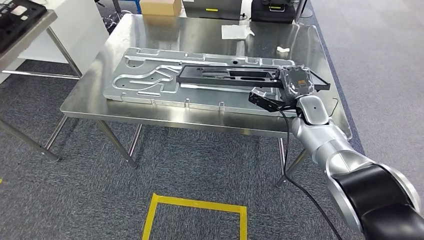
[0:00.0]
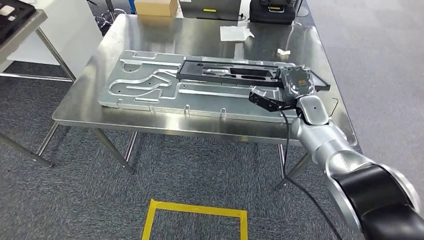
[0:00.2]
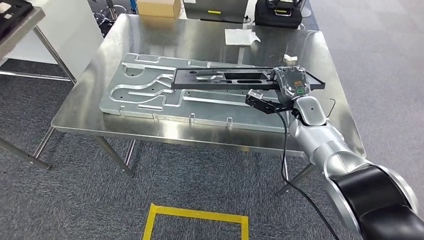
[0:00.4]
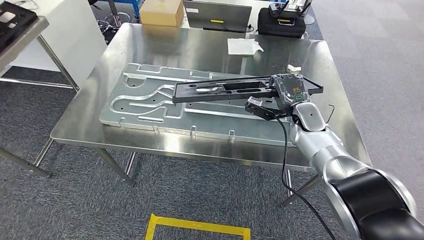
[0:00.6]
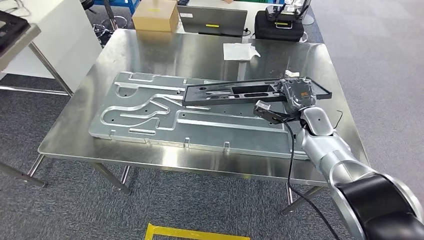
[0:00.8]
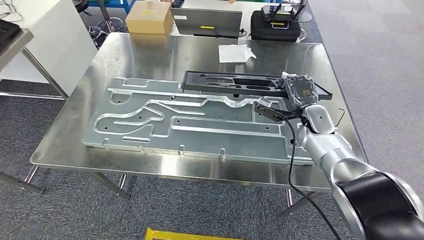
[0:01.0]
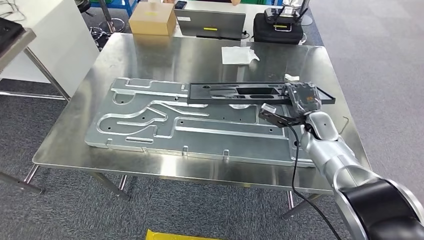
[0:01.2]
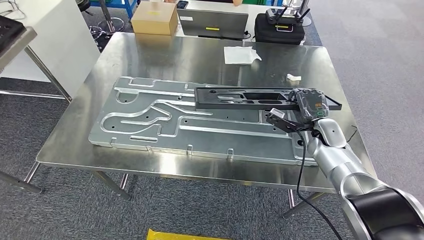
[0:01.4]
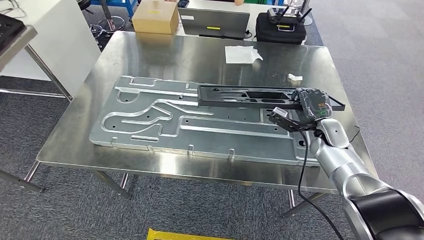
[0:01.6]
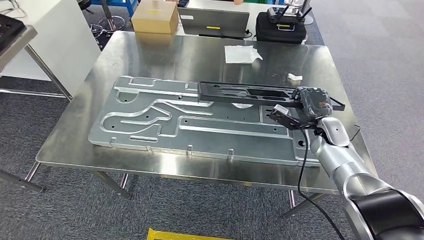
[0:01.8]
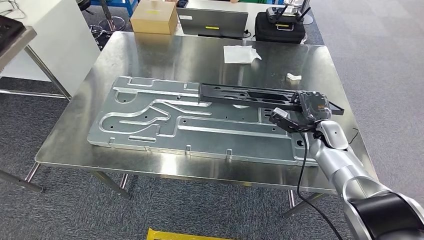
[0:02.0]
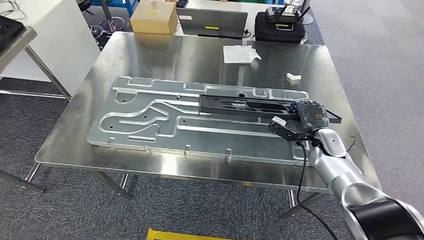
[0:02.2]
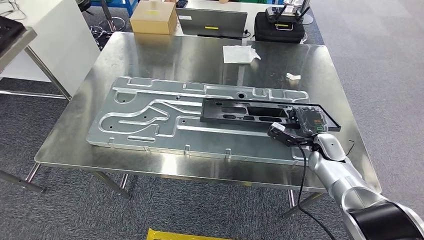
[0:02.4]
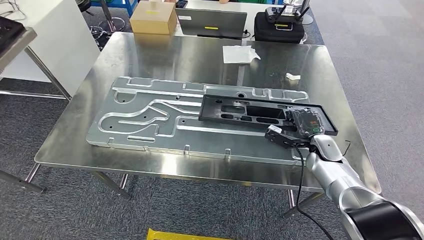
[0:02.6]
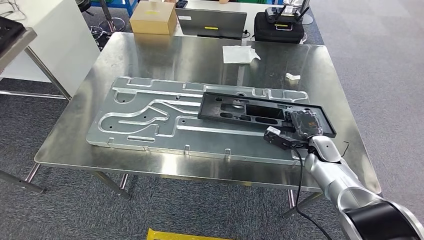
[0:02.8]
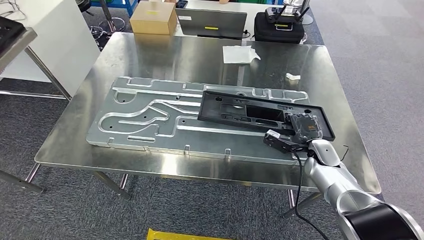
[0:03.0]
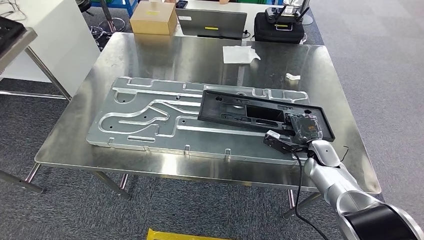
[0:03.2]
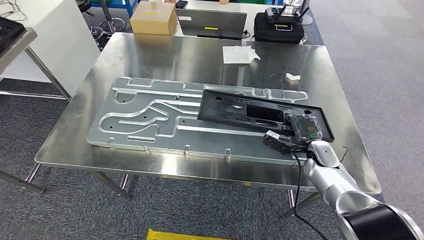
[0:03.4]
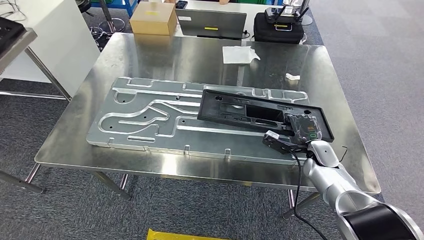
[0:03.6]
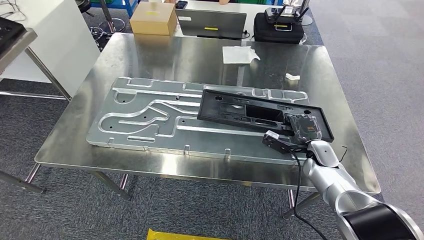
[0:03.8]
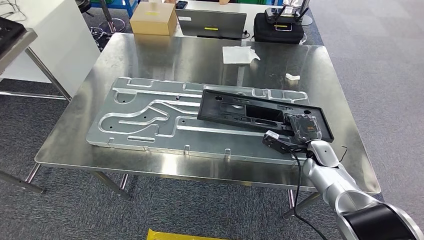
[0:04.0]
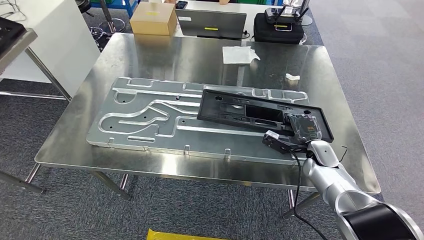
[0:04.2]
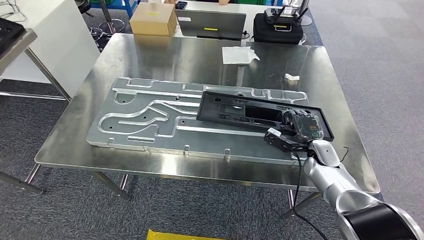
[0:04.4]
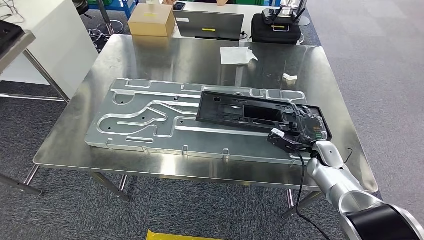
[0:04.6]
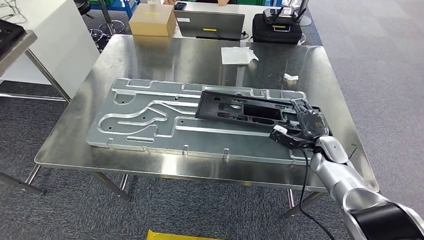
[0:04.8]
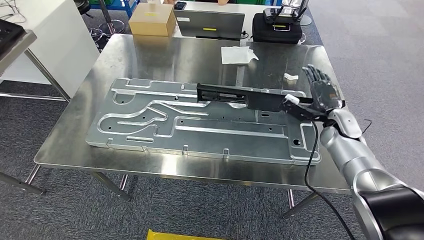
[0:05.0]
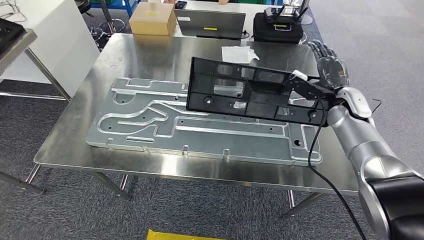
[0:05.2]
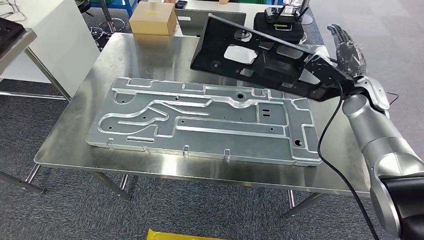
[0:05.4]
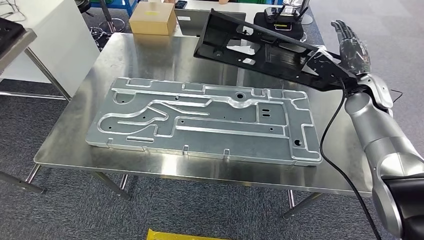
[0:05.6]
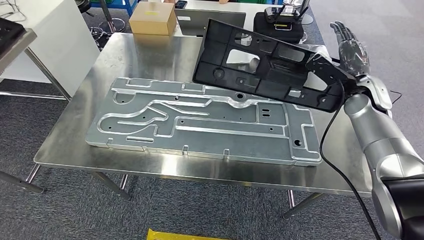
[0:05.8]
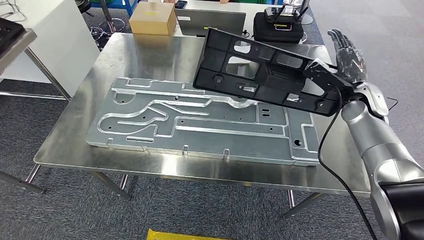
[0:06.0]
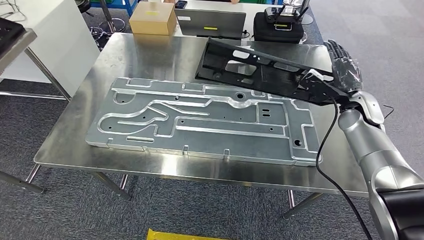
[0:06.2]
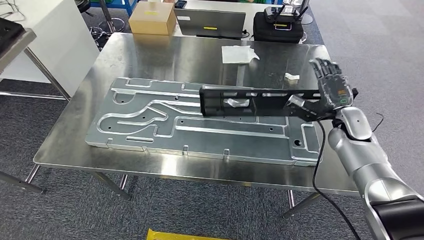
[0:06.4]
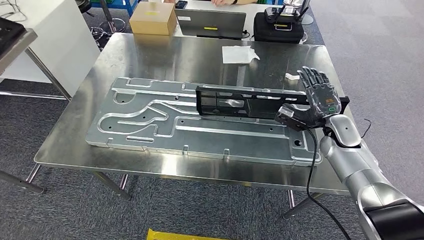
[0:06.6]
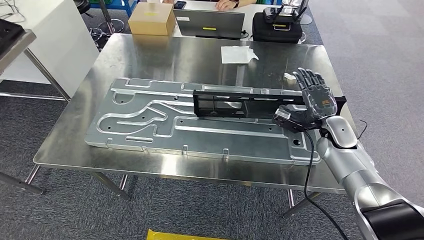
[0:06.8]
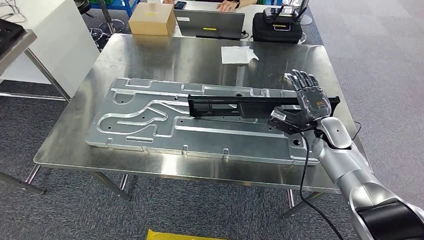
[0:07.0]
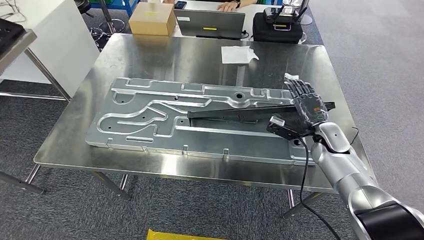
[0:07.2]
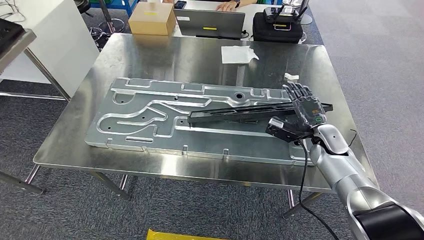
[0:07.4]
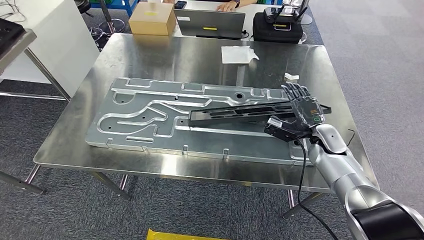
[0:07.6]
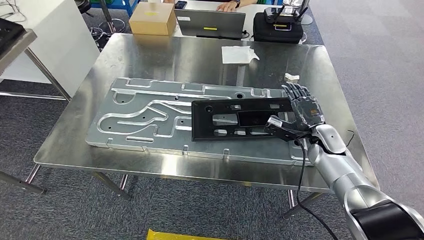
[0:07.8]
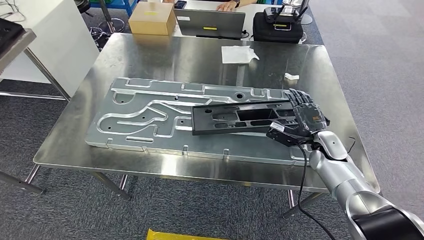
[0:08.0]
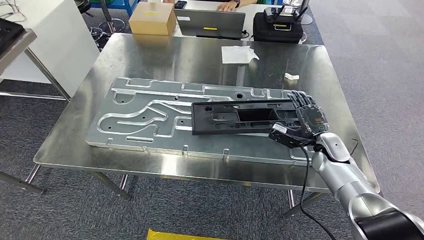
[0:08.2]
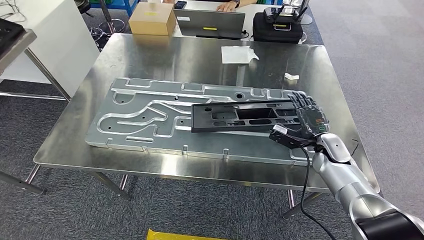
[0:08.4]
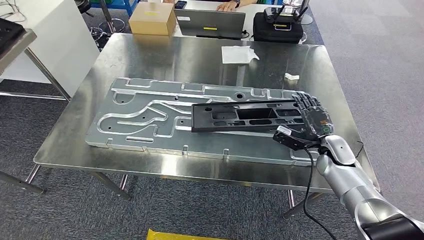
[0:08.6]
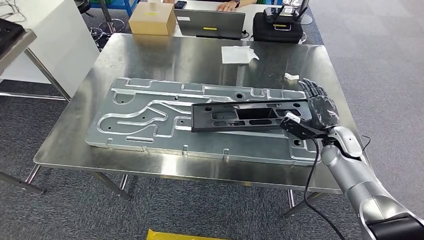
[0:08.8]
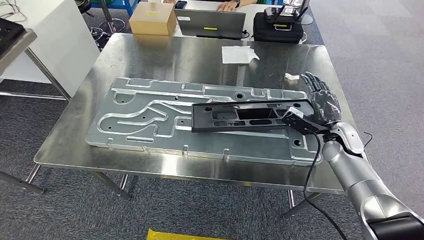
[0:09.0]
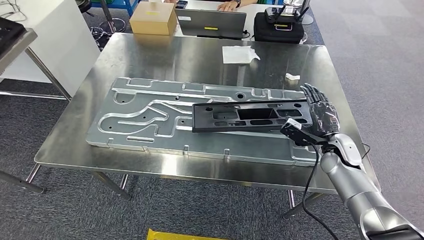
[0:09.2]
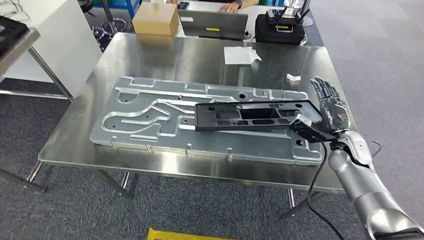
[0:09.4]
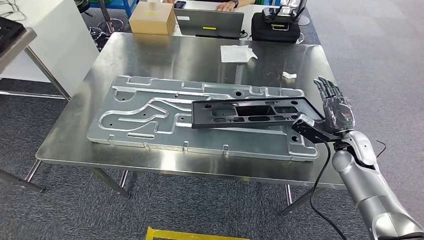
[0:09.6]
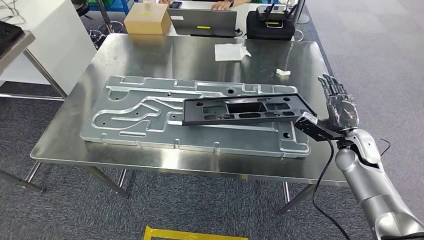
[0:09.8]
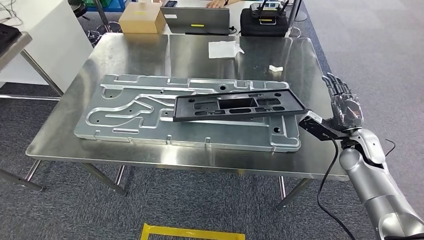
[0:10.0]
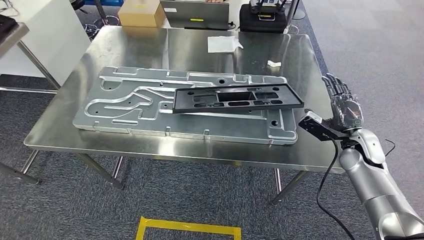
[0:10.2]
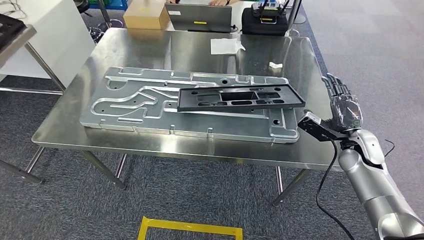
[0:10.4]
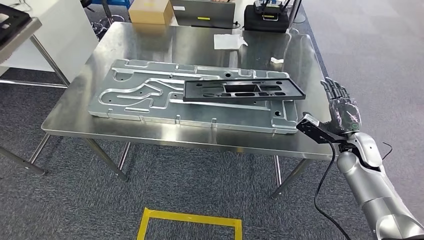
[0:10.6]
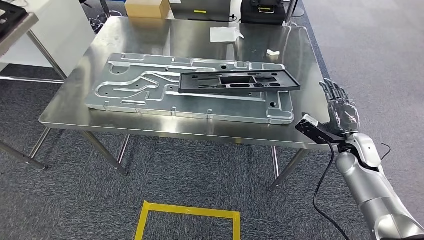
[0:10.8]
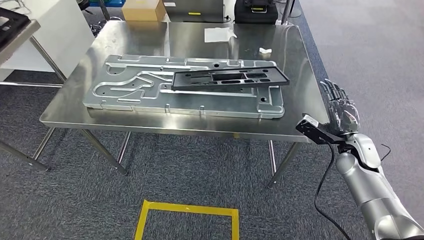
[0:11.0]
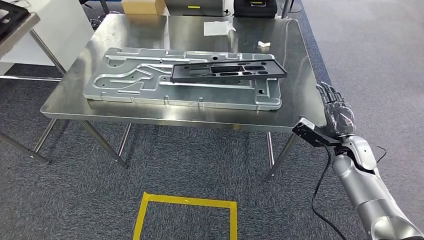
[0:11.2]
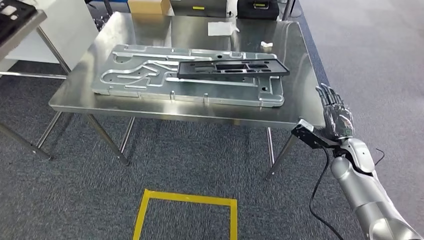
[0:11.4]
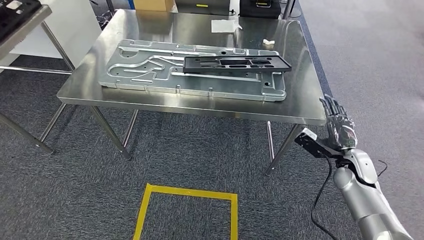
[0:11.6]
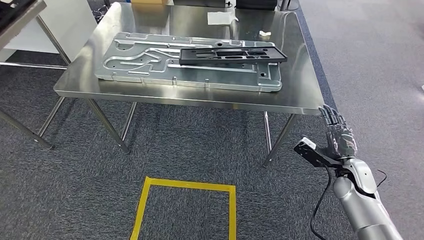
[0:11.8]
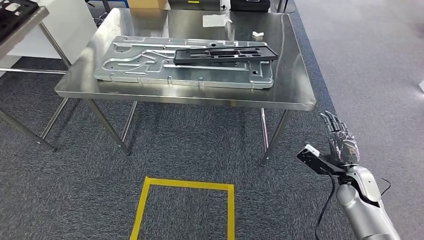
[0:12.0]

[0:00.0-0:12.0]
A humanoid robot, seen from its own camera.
Step, 0:00.8 to 0:09.6: Insert the large material into the corresponding slot on the workbench.
0:01.6 to 0:03.0: The right hand moves downward, some 5 cm.
0:03.0 to 0:04.4: The hands move only a little.
0:07.6 to 0:09.0: The hands move only a little.

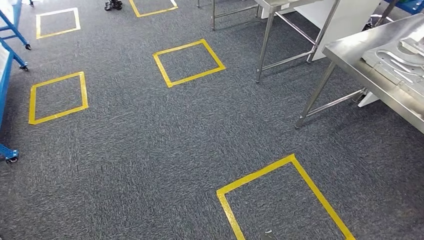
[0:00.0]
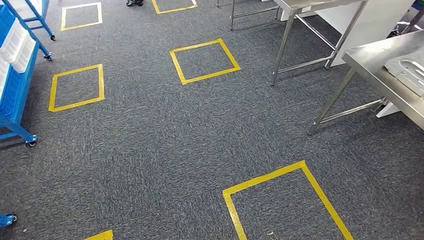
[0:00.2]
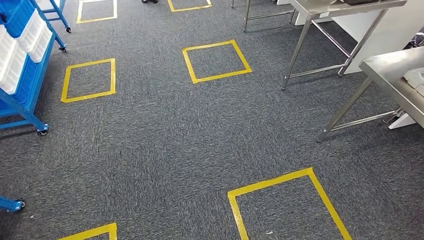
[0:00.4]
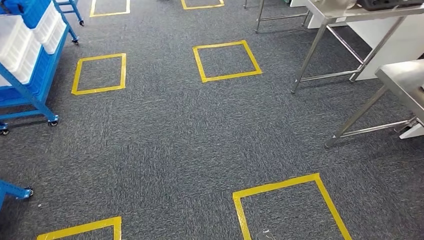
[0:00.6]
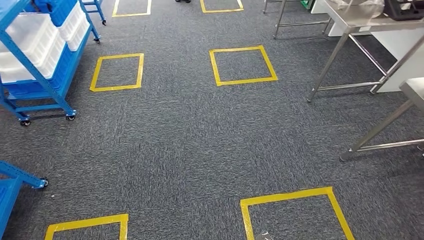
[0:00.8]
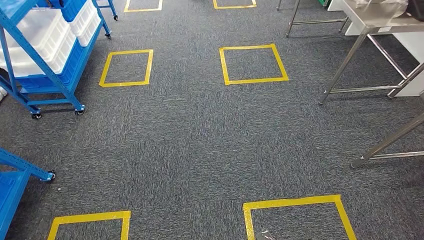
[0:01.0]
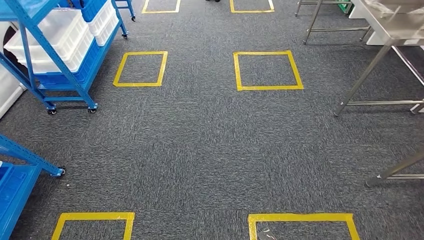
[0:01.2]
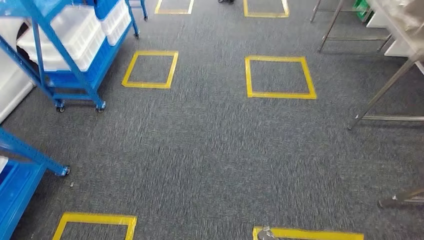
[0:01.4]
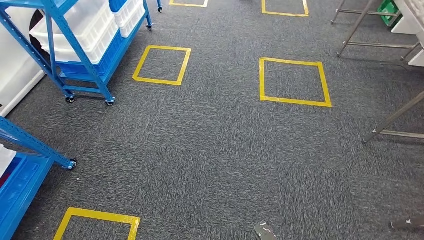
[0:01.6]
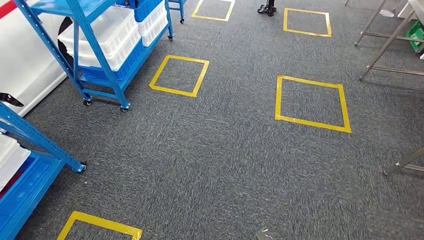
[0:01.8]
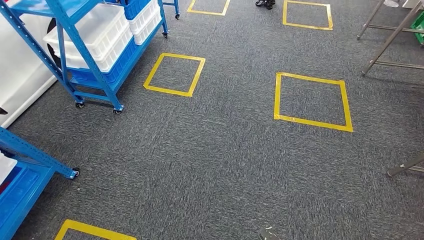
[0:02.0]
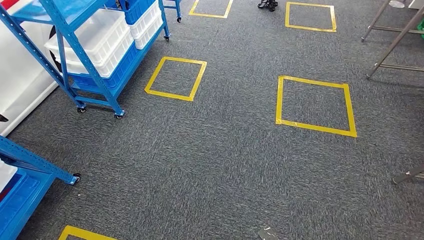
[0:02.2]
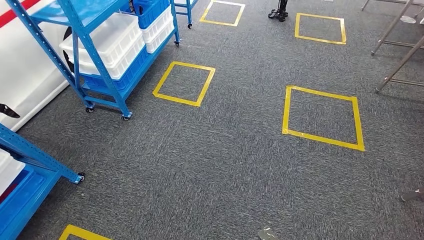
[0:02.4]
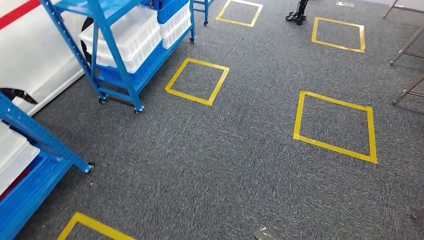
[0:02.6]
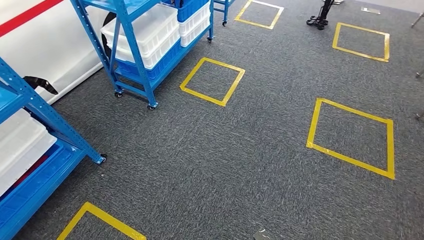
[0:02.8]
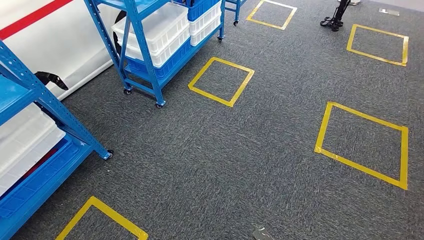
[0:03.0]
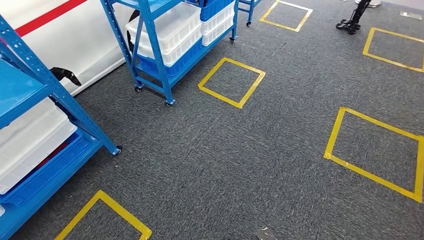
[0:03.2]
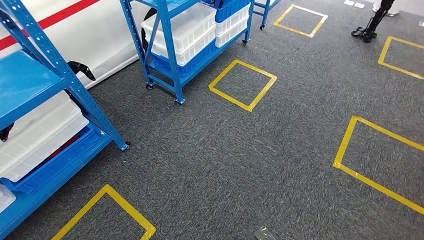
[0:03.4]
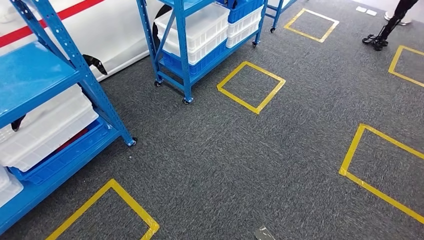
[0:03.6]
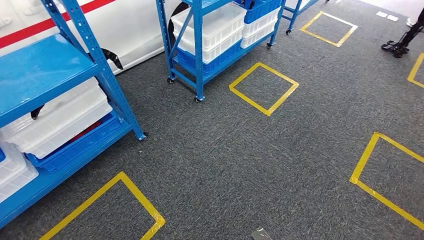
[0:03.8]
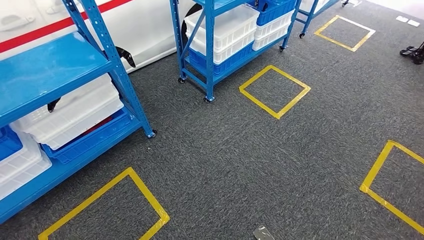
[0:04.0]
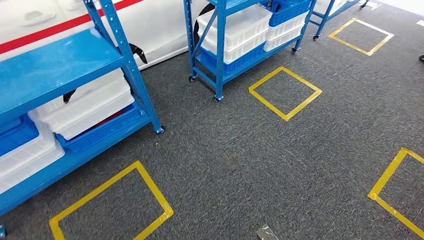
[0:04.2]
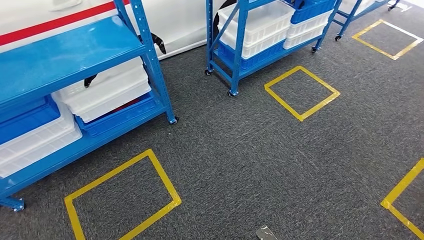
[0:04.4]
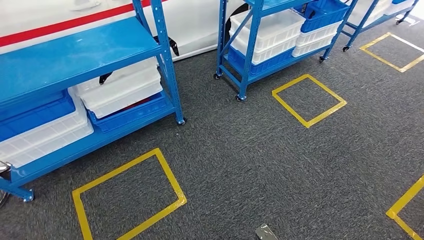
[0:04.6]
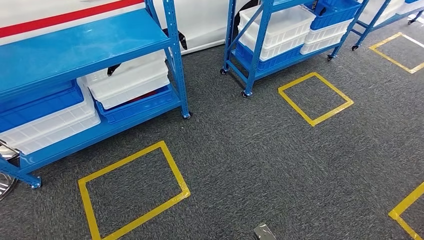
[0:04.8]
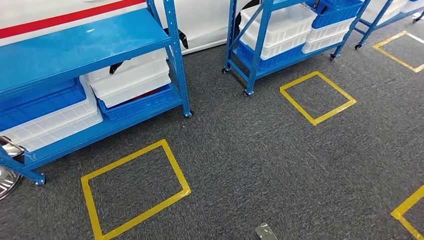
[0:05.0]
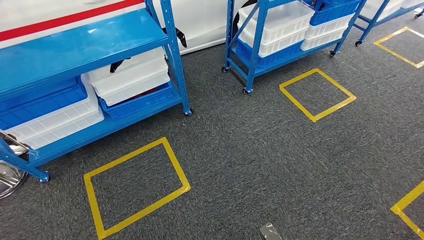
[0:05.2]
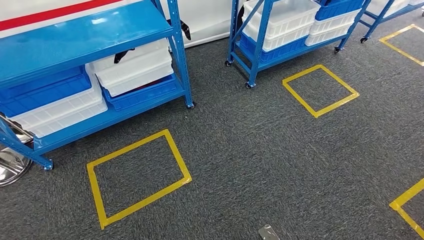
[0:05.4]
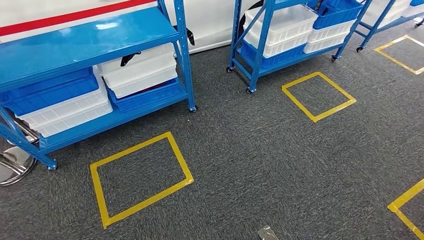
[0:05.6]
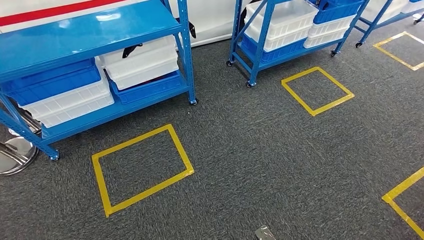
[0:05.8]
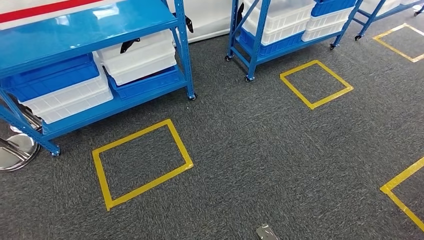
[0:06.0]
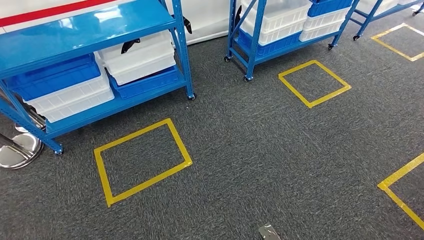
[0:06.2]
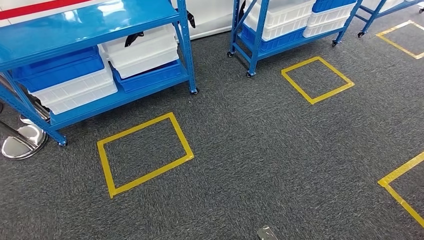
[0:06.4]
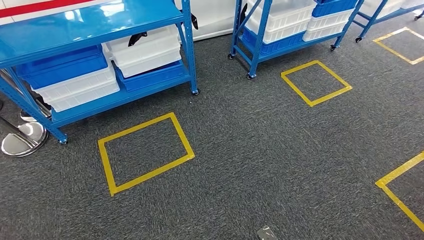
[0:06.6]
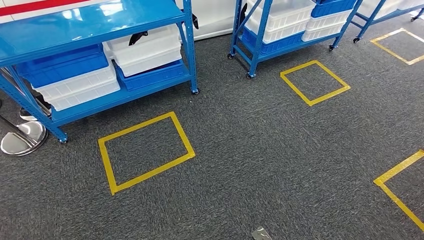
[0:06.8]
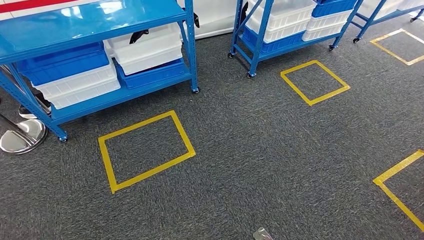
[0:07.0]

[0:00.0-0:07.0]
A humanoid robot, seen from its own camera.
Step, 0:00.0 to 0:06.0: Return to the initial position at the shelf.
